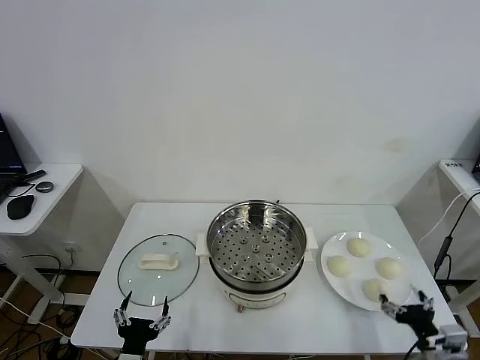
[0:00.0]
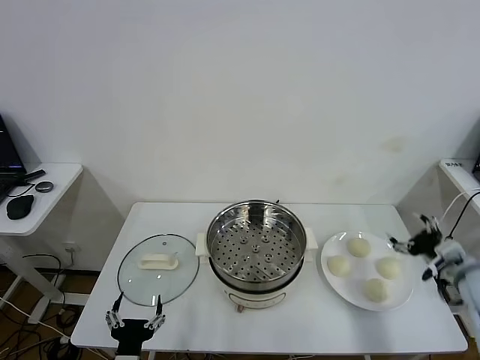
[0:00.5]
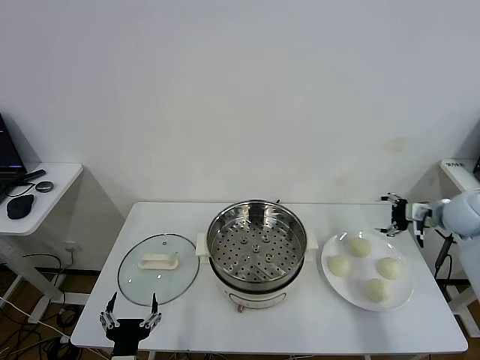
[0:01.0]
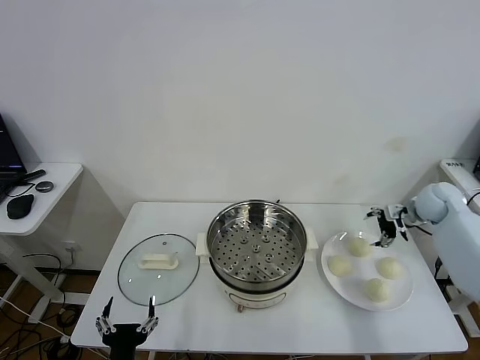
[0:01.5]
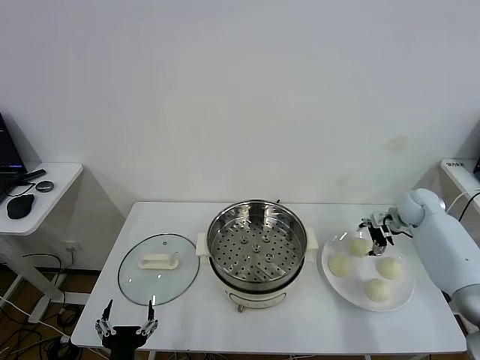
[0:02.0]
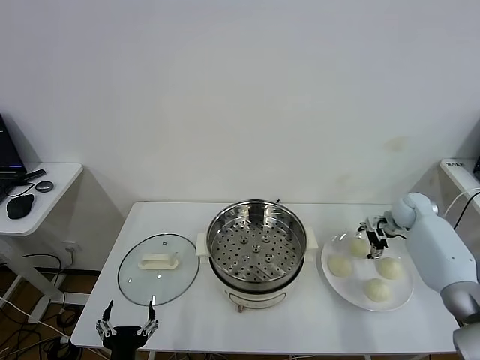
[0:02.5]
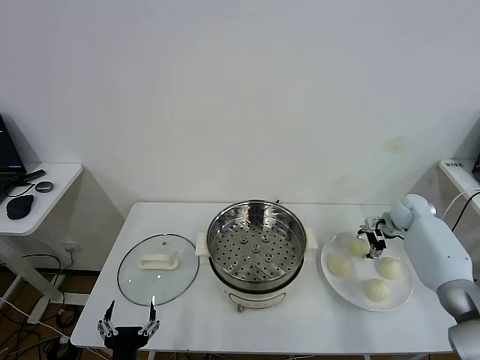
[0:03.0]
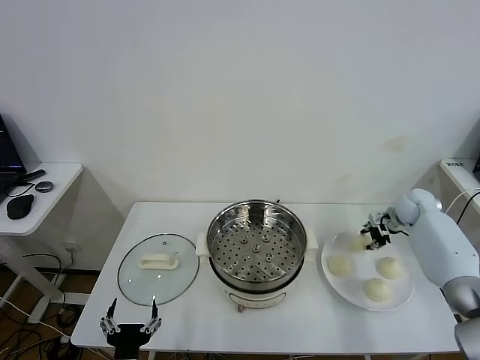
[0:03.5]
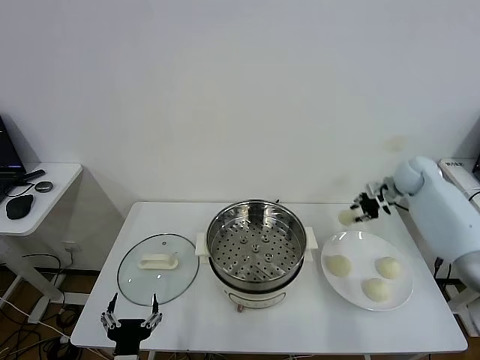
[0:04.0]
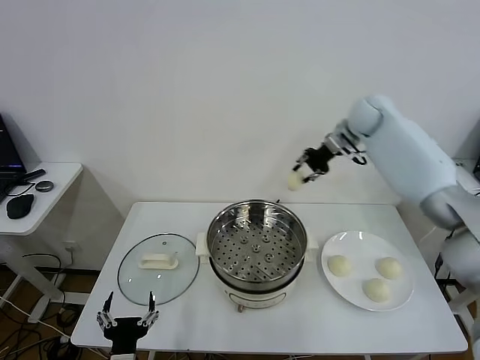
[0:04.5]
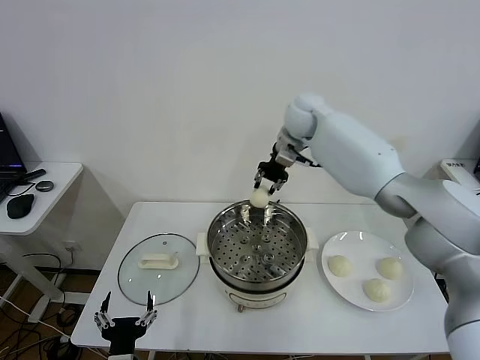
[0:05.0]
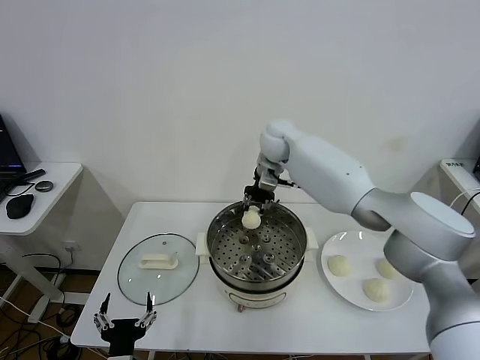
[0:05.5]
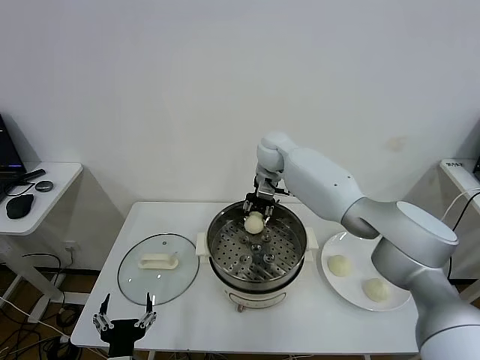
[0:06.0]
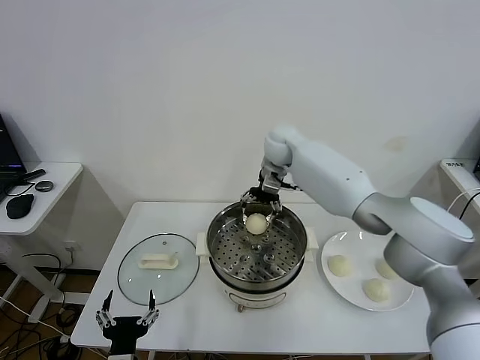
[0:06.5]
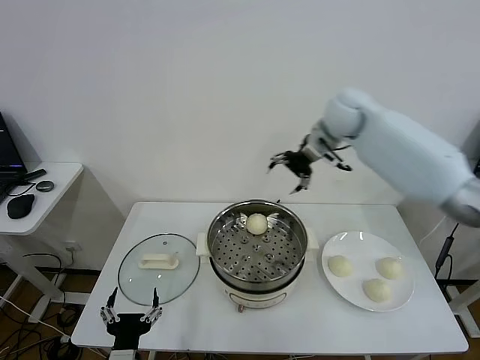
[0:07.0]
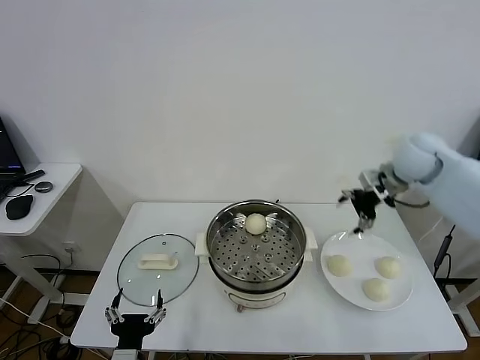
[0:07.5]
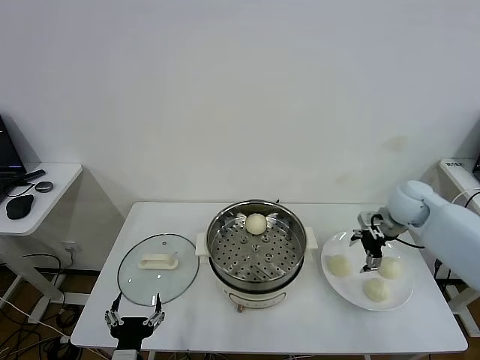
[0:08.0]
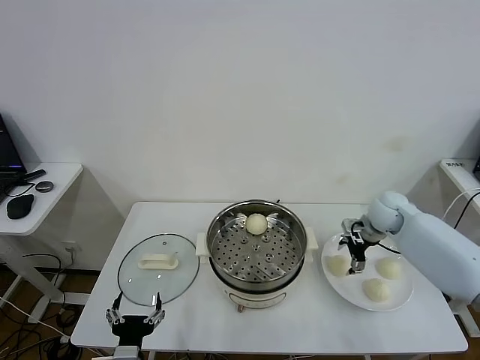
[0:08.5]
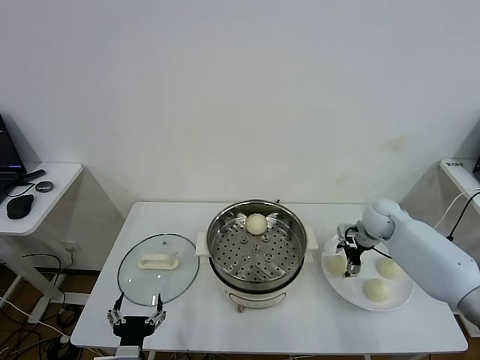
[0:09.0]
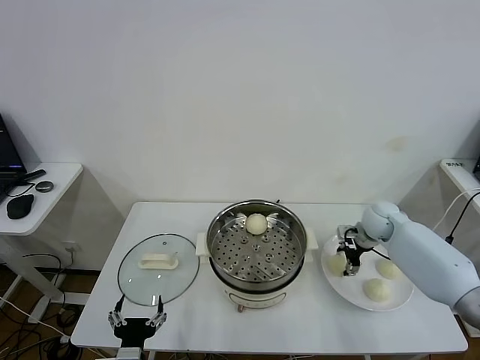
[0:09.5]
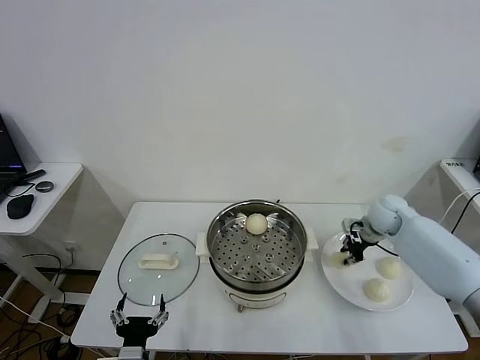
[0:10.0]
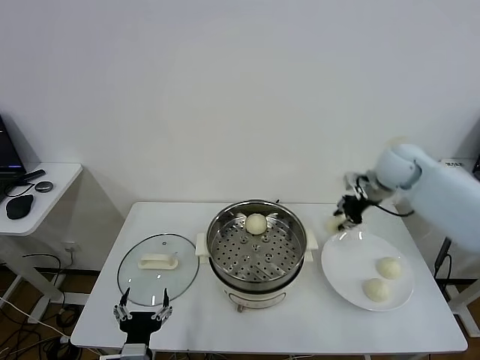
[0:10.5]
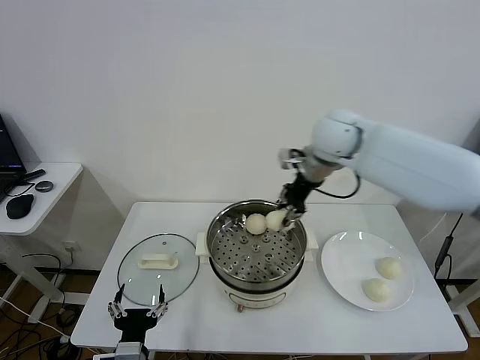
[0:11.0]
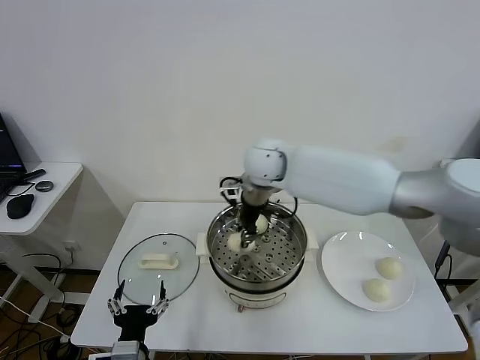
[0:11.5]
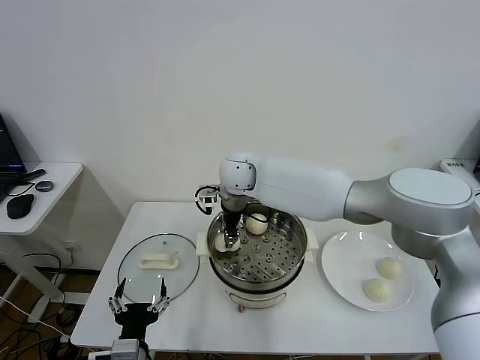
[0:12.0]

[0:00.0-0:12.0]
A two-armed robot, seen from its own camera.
Task of the whole recording: take steamed baozi put them in steamer.
Step, 0.0 to 3.0 s: Grasp the baozi in the plate with right gripper.
Step, 3.5 to 6.0 s: Place the baozi on the steamer with right gripper.
Step, 6.5 to 9.5 s: Grasp the baozi in the plate with right gripper.
2.0 to 4.0 s: The right gripper goes some 10 cm upward, and closes its fingers.
4.0 to 6.0 s: The right gripper goes some 35 cm to the left.
6.0 to 8.0 s: The right gripper travels to the right and backward by about 35 cm, and opens.
8.0 to 10.0 s: The right gripper is displaced downward by roughly 5 cm, and closes up.
10.0 to 12.0 s: The right gripper is displaced to the left by roughly 40 cm.

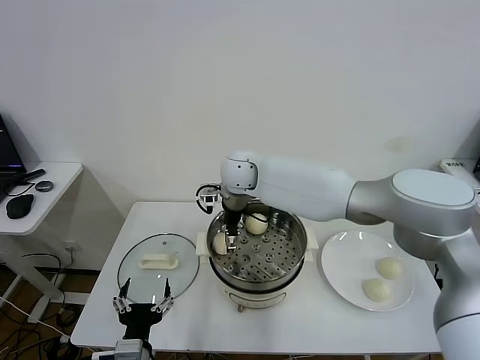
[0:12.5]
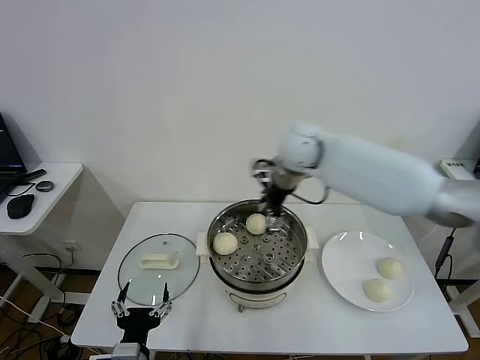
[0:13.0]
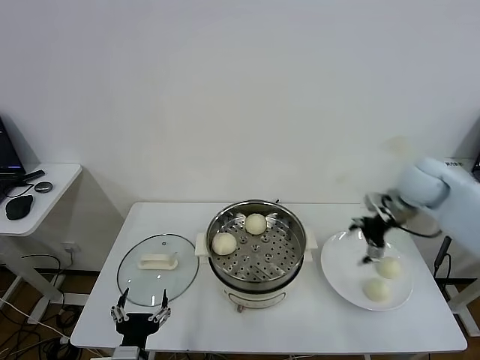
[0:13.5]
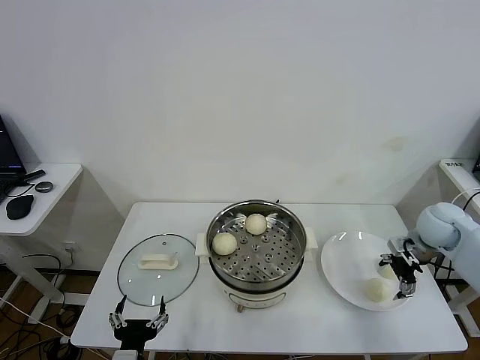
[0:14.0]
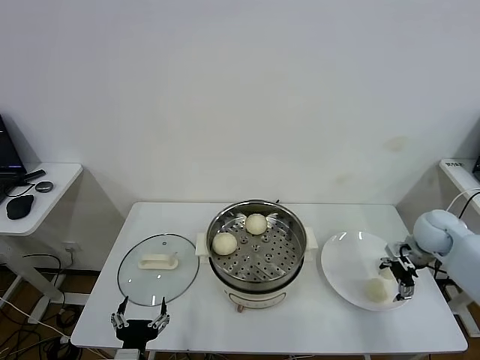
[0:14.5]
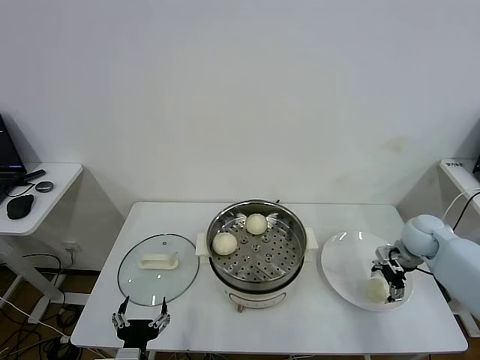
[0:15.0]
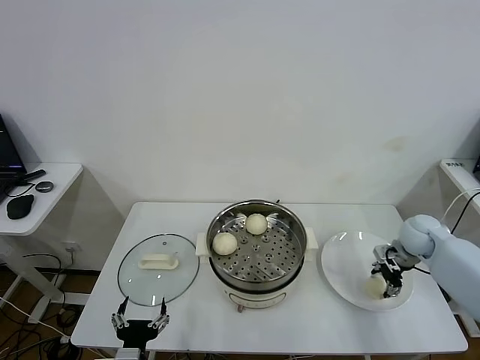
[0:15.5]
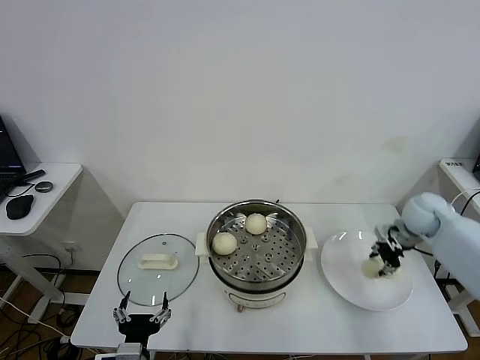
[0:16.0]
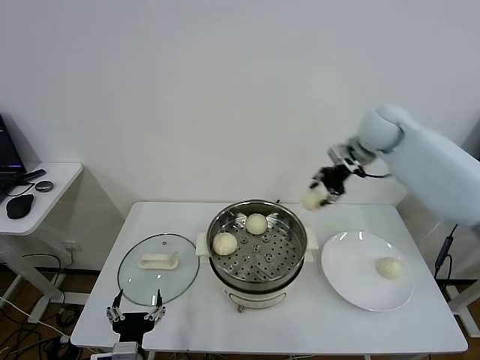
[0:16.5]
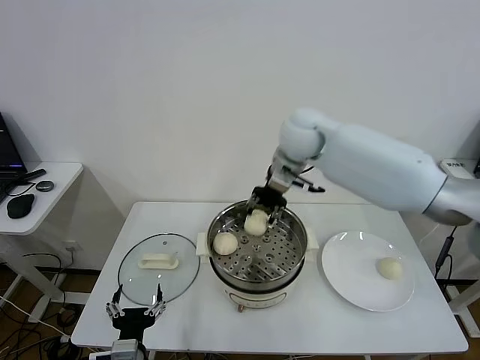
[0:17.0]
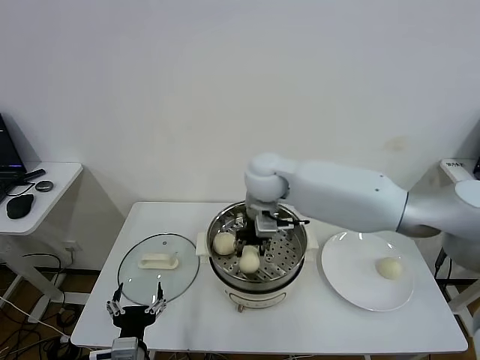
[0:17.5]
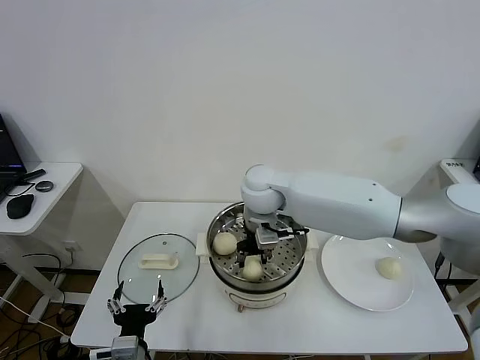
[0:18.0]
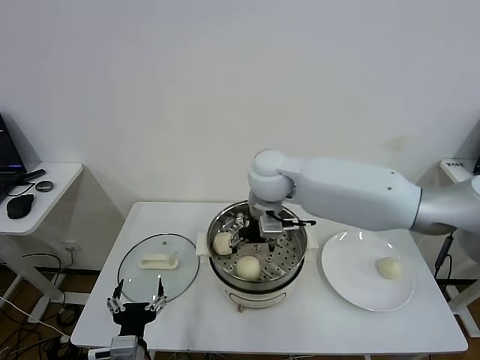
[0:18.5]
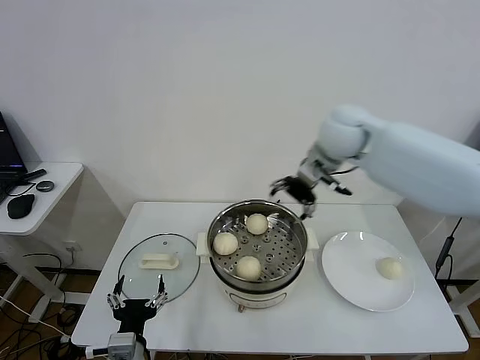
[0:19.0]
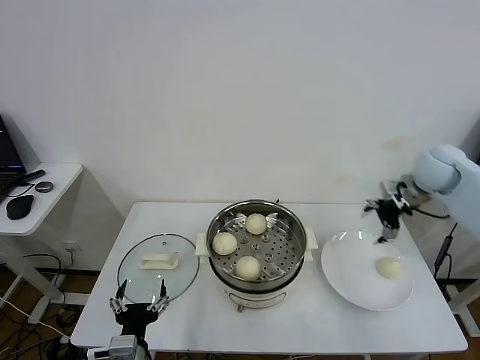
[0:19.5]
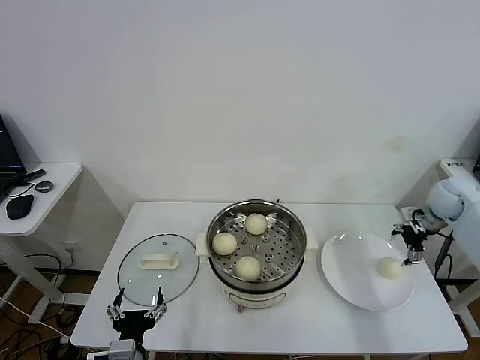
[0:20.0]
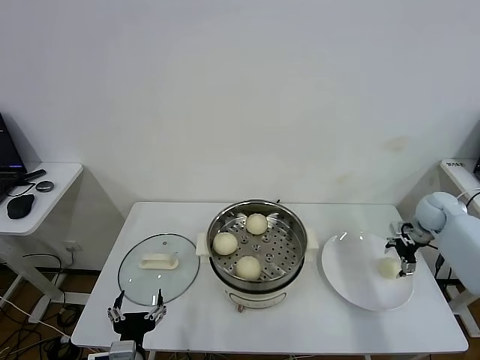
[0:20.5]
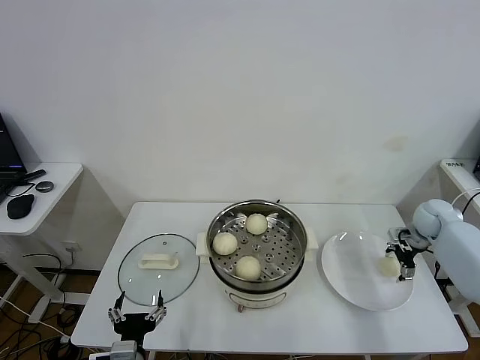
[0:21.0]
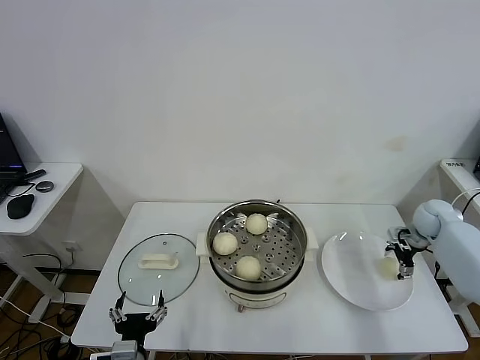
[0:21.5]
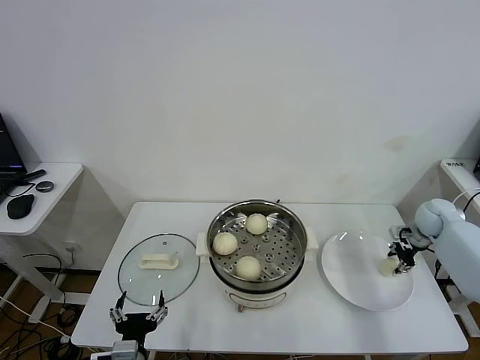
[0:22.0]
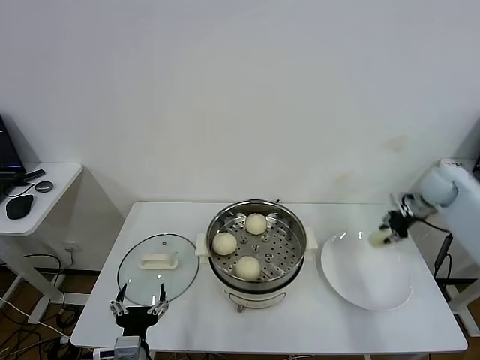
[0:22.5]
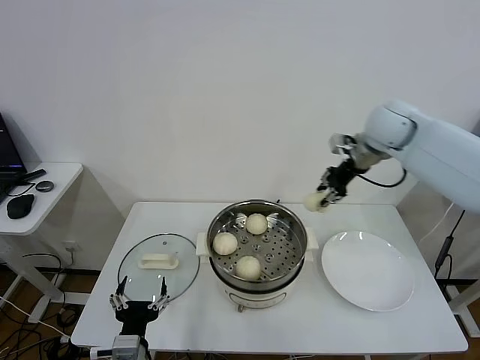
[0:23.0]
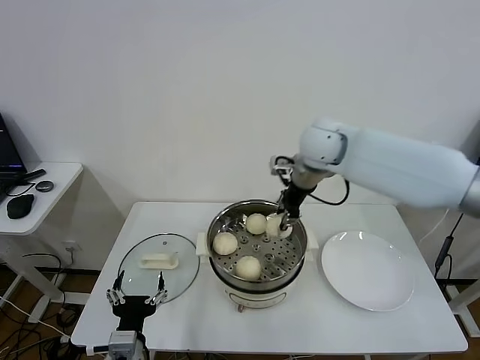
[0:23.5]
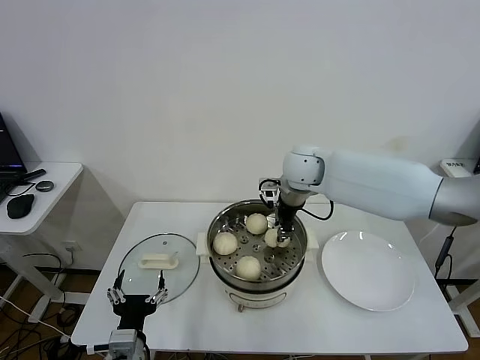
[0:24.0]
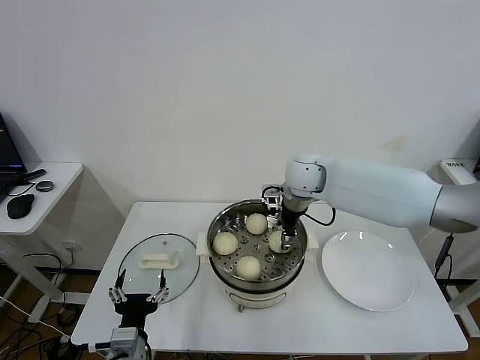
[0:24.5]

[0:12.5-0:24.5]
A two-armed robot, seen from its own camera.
Task of the whole recording: take steamed baozi put them in steamer.
Step, 13.0 to 15.5 s: Grasp the baozi in the plate with right gripper.
Step, 16.0 to 18.0 s: Place the baozi on the steamer with right gripper.
Step, 19.0 to 21.5 s: Grasp the baozi in the plate with right gripper.
12.5 to 14.5 s: The right gripper is displaced to the right by approximately 50 cm.
14.5 to 16.5 s: The right gripper is displaced upward, to the left and forward by about 30 cm, and closes.
16.5 to 18.5 s: The right gripper heads to the left, covering approximately 25 cm, and opens its fingers.
18.5 to 20.5 s: The right gripper goes about 40 cm to the right.
20.5 to 22.5 s: The right gripper goes about 5 cm upward, and closes up.
22.5 to 24.5 s: The right gripper shifts about 35 cm to the left, and opens.

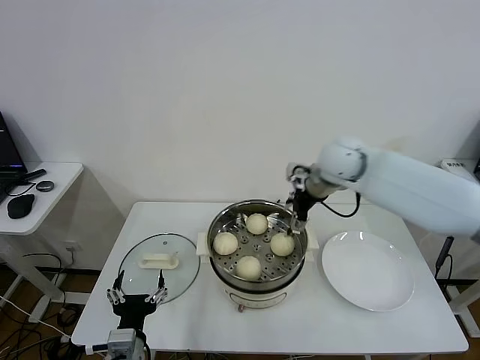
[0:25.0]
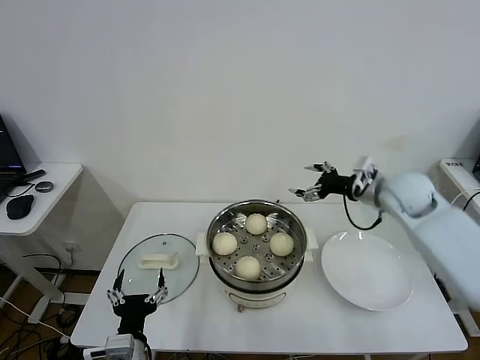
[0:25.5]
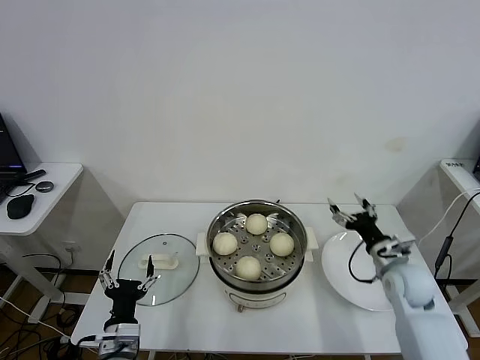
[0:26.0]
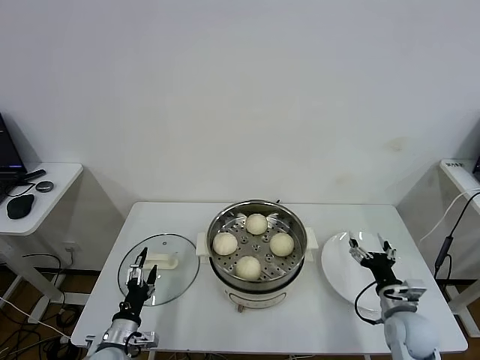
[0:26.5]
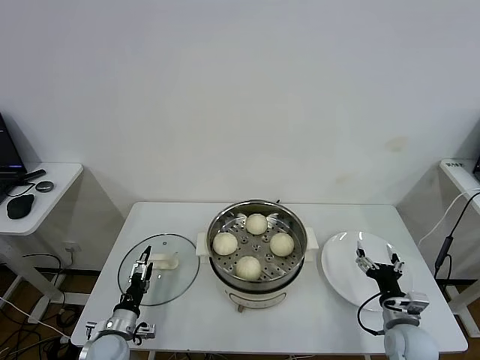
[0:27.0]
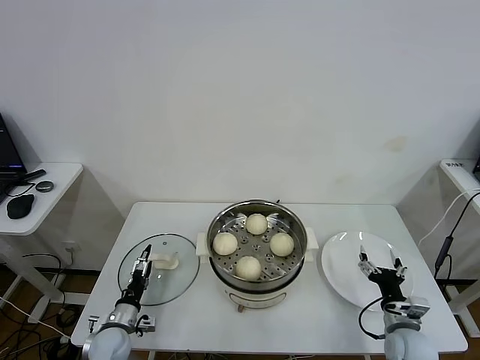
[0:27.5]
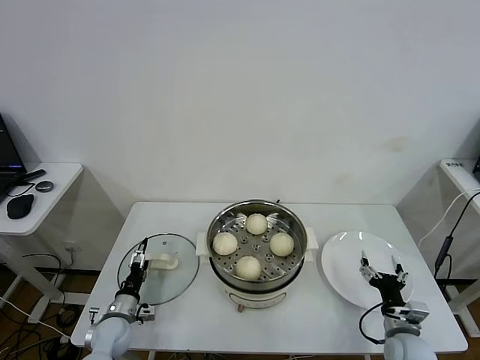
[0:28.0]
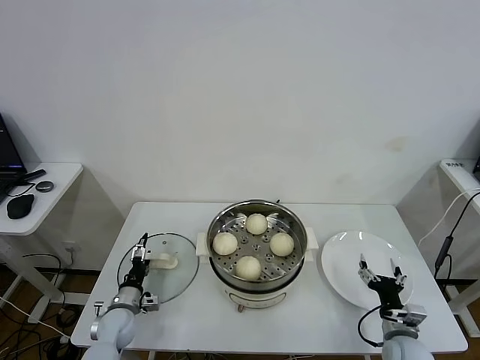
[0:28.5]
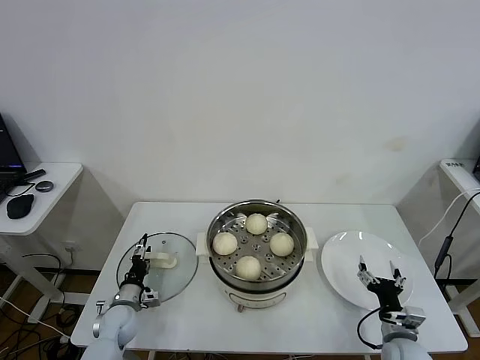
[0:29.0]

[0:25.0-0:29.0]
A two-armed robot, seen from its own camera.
Task of the whole recording: take steamed baozi put them in steamer.
25.0 to 27.0 s: The right gripper moves downward, backward and to the right, about 40 cm. Meanwhile the left gripper moves downward, to the left and forward, some 20 cm.
27.0 to 29.0 s: The left gripper goes roughly 10 cm forward.
